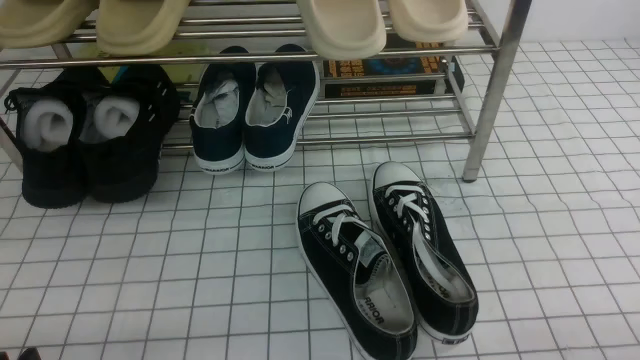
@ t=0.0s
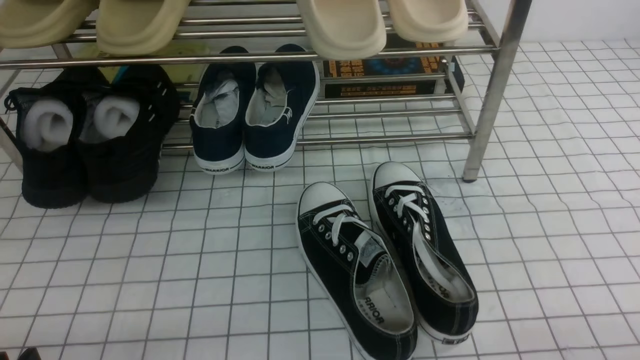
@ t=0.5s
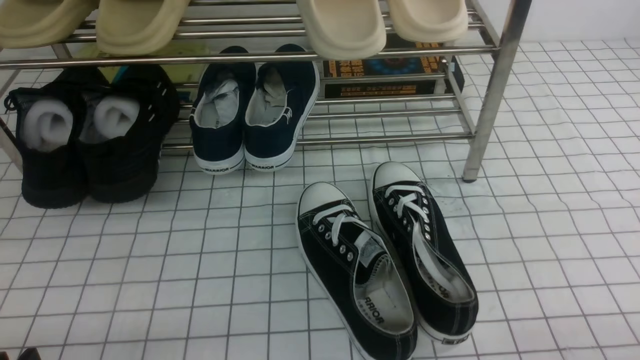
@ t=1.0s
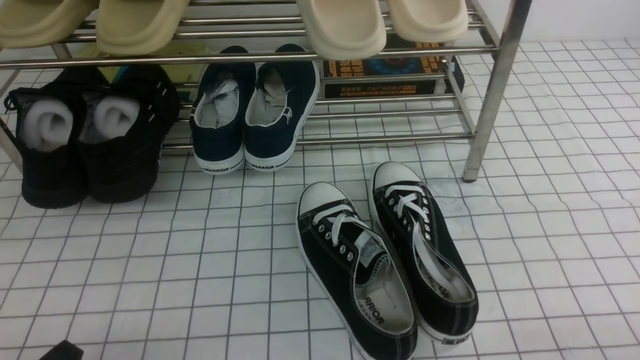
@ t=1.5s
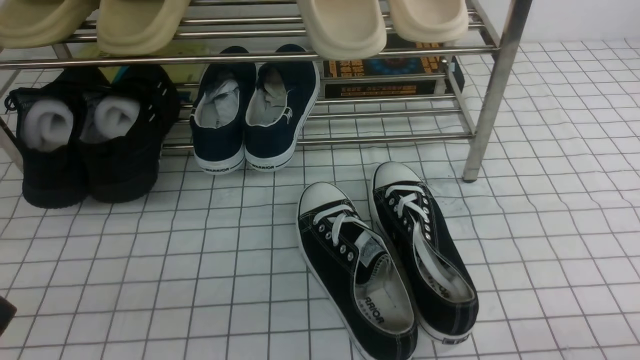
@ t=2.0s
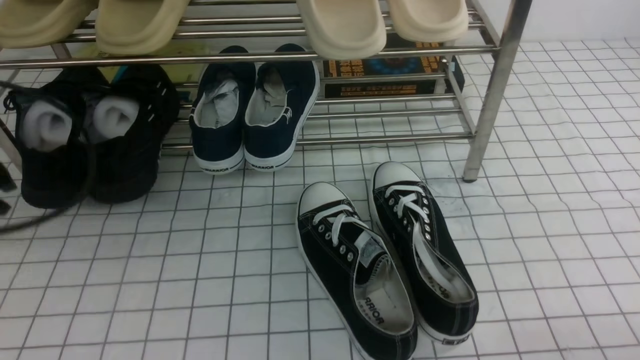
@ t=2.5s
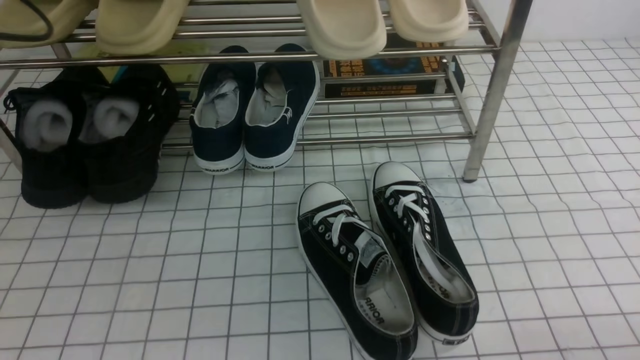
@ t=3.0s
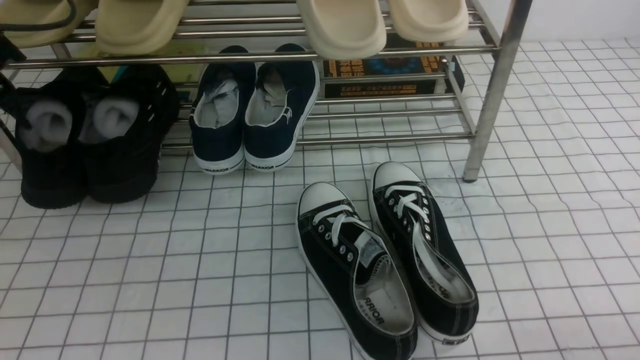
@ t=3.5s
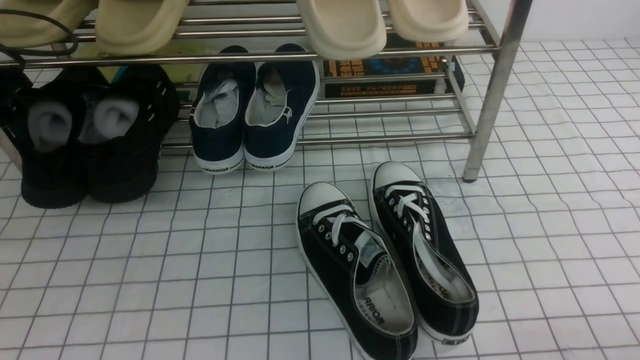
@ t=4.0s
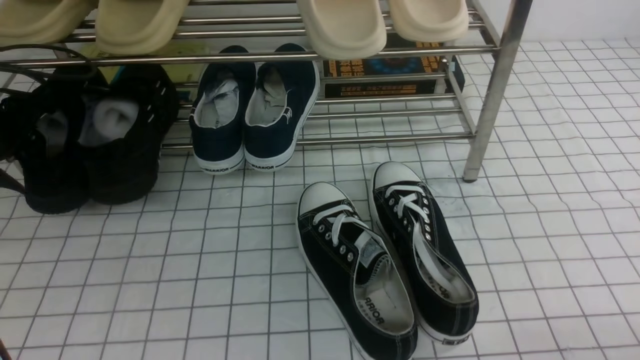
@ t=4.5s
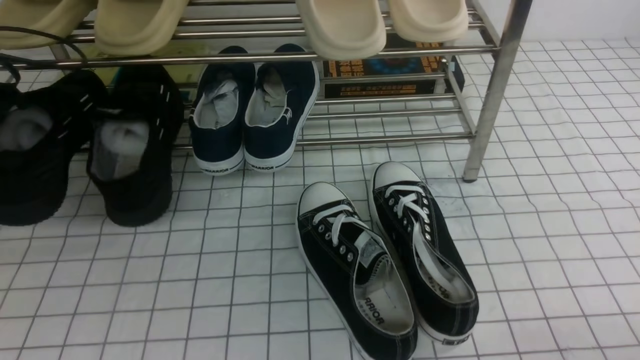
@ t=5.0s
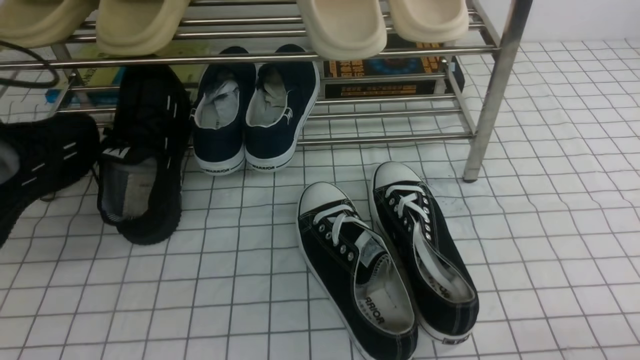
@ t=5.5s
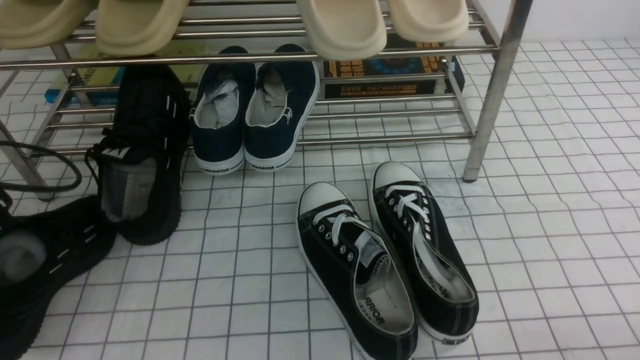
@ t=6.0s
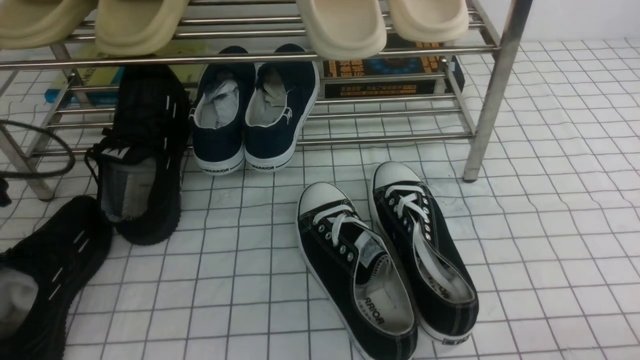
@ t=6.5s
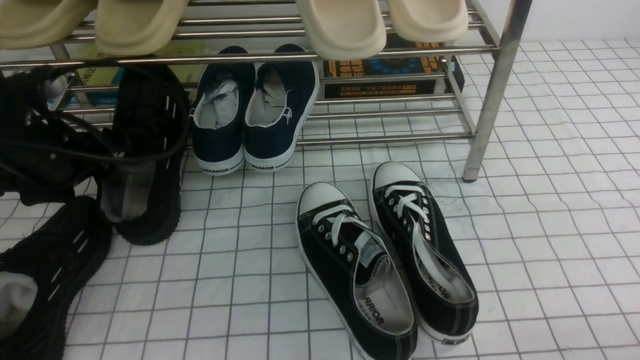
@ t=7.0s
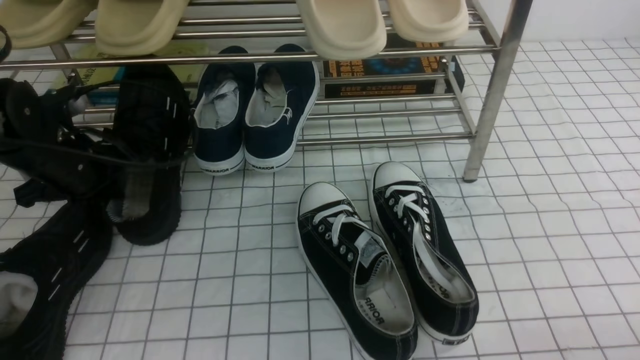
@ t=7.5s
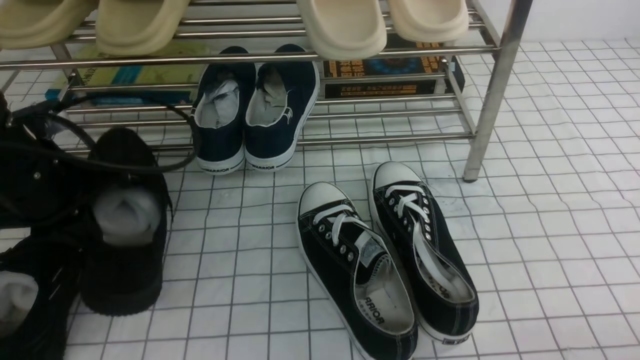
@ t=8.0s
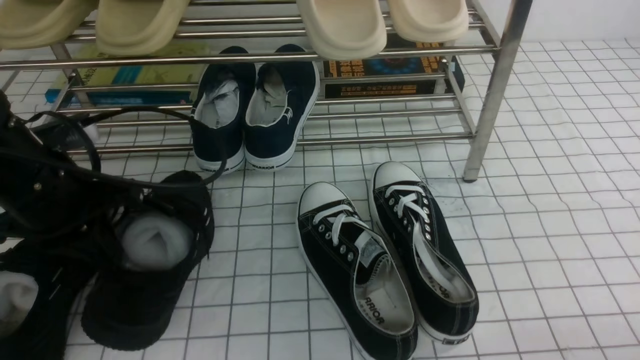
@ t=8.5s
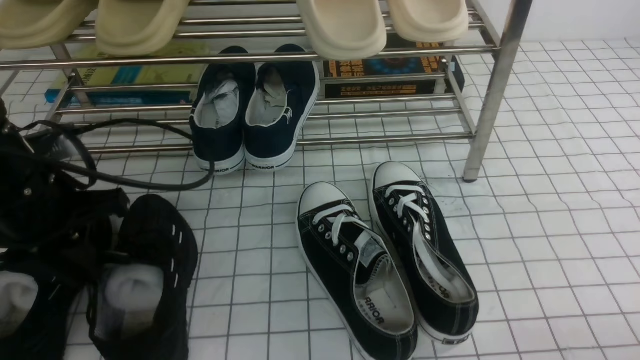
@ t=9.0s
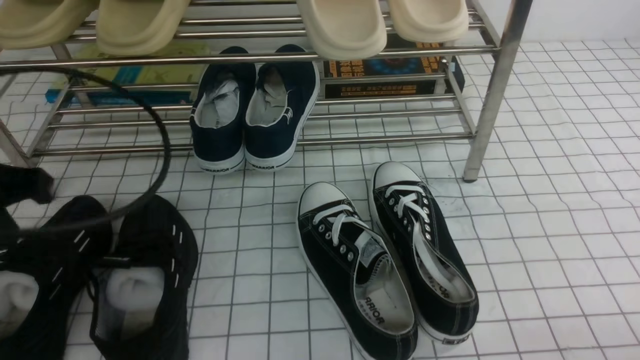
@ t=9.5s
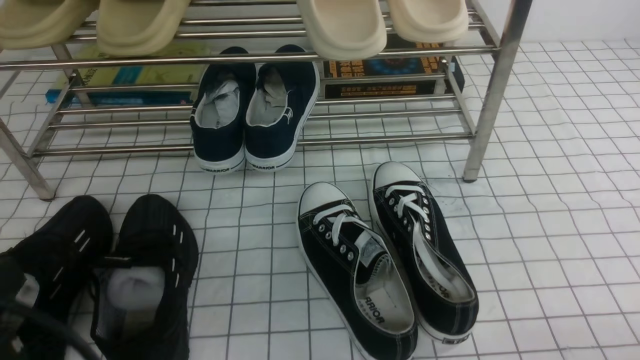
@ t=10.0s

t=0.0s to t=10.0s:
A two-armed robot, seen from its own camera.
Step, t=0.0s to t=4.5s: use the left arm to clamp a shoe on the left side of the shoe rack.
Step, t=5.0s to t=6.0s: Use your left arm to remove the clamped shoe from the shoe rack and put it down.
Step, t=6.5s to t=7.5s: use the left arm to clamp a shoe on the left side of the shoe rack.
Step, t=8.0s to t=9.0s: Use your left arm to remove the clamped shoe from the shoe rack and put it down.
t=2.0s to t=4.0s: The left gripper travels forward by approximately 30 cm, and opens.
t=4.0s to t=6.0s: The left gripper goes about 15 cm backward, and closes up.
t=6.0s to t=8.0s: The left gripper heads to the right and forward, covering approximately 10 cm, and opens, then closes once more.
t=8.0s to t=10.0s: The left gripper goes some 25 cm backward, and opens, then closes again.

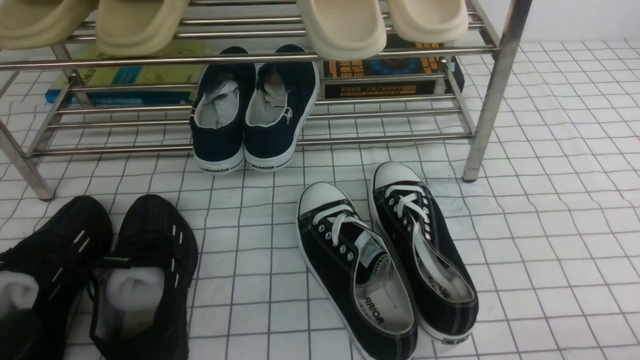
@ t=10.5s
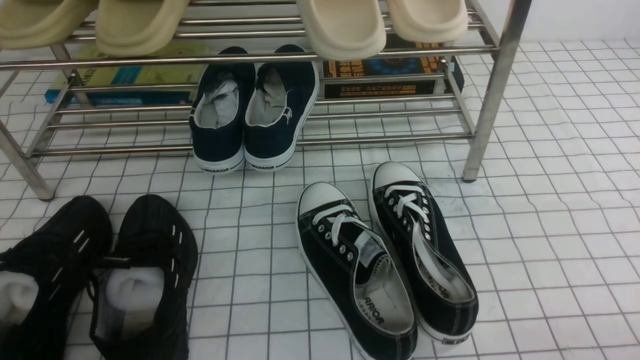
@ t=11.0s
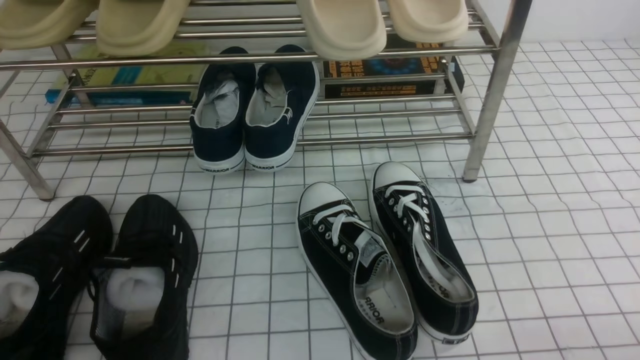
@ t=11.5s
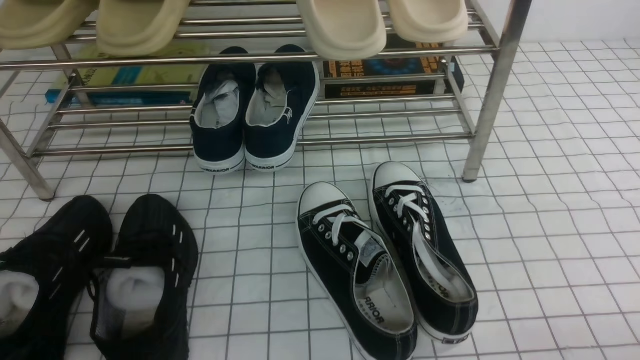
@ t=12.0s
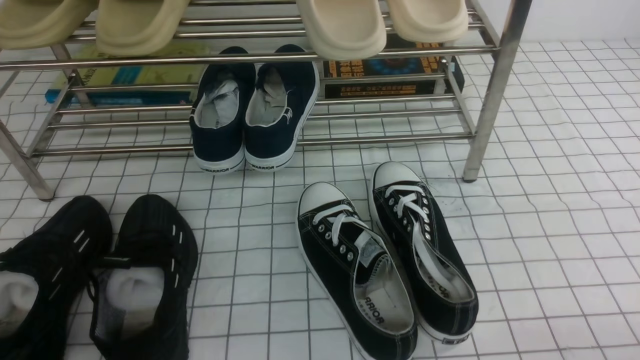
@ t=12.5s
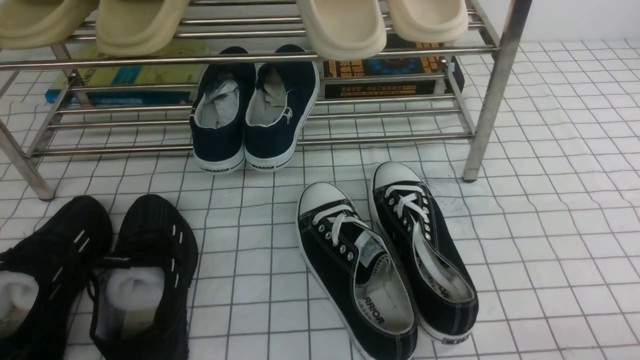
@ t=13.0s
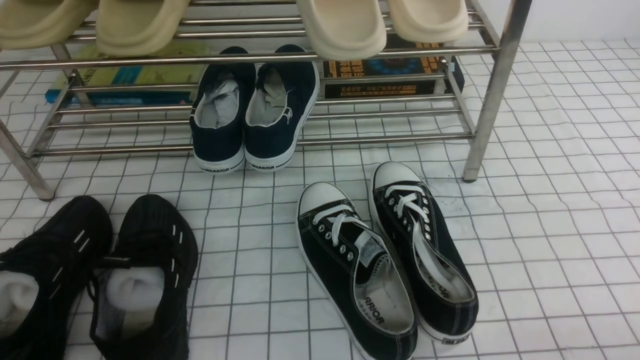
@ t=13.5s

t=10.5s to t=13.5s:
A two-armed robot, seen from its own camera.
t=12.0s to t=13.5s: Neither gripper changes place.

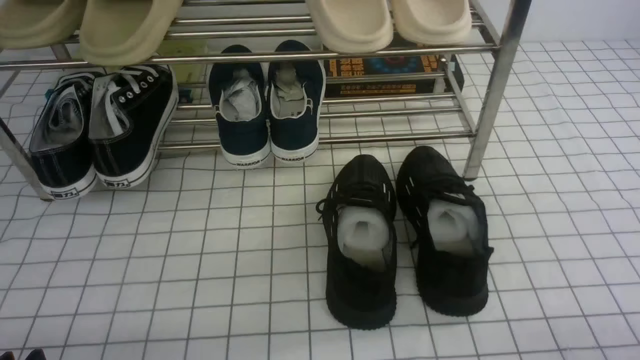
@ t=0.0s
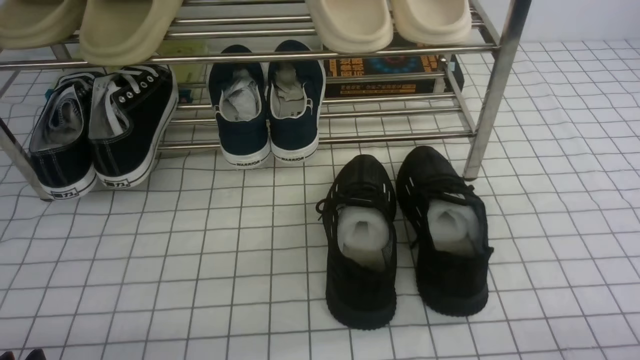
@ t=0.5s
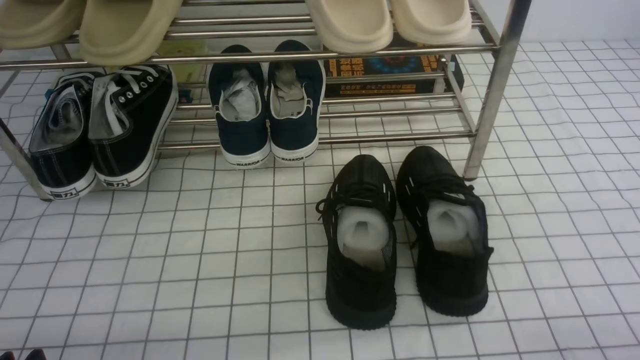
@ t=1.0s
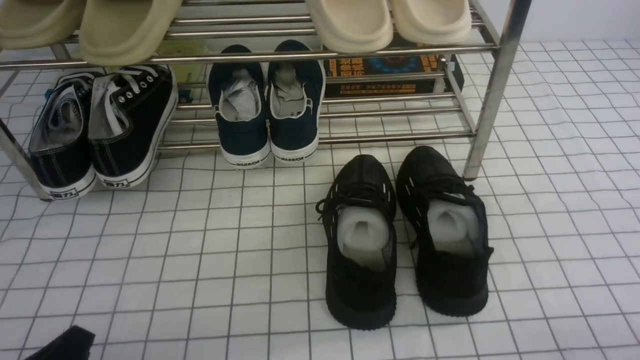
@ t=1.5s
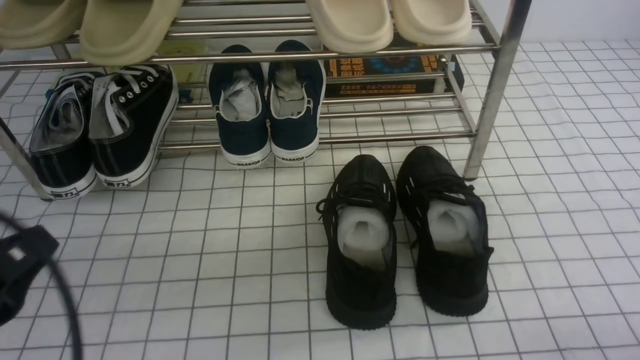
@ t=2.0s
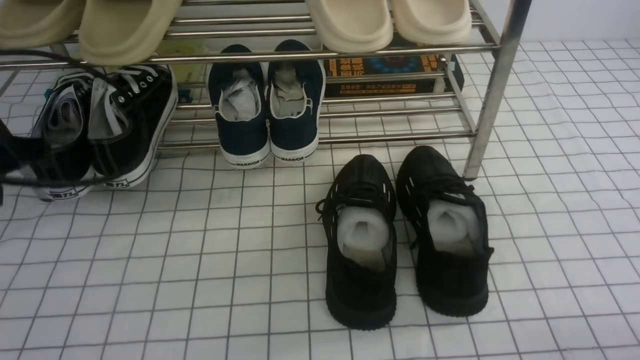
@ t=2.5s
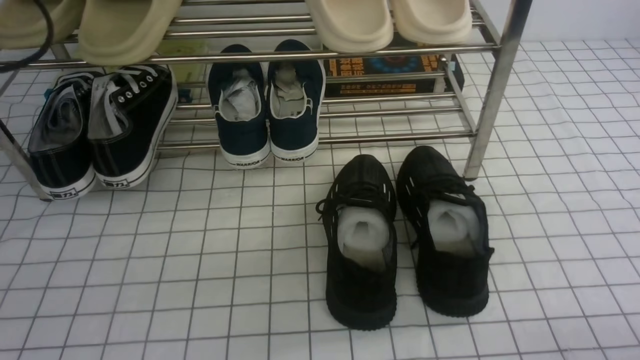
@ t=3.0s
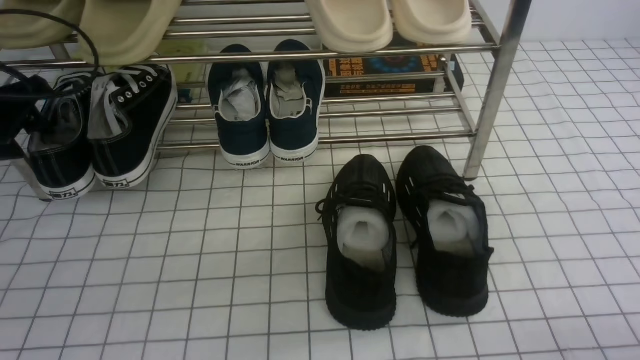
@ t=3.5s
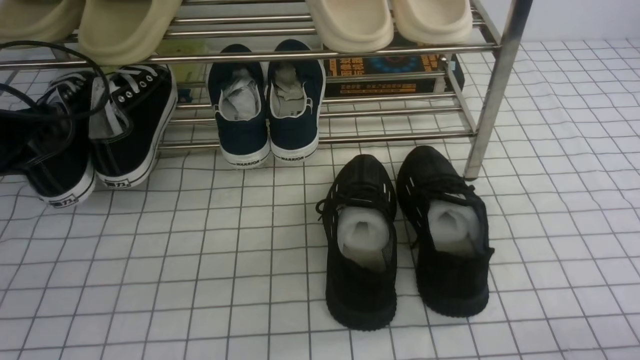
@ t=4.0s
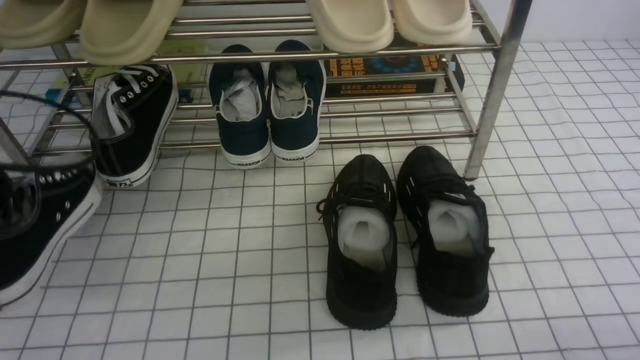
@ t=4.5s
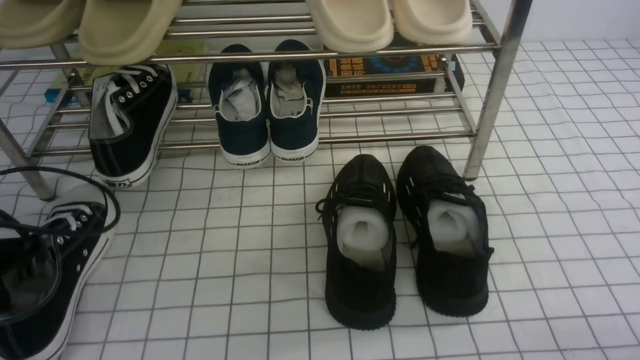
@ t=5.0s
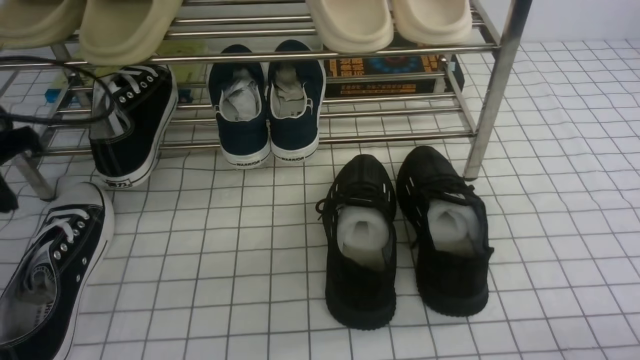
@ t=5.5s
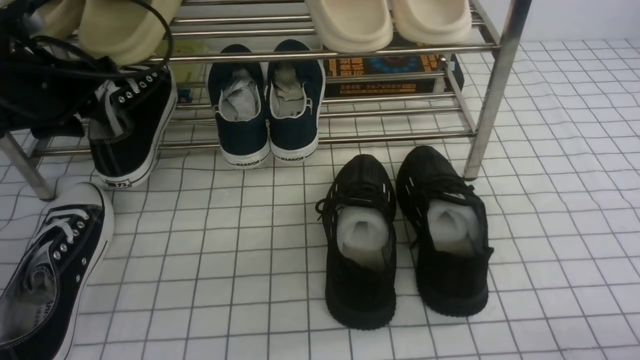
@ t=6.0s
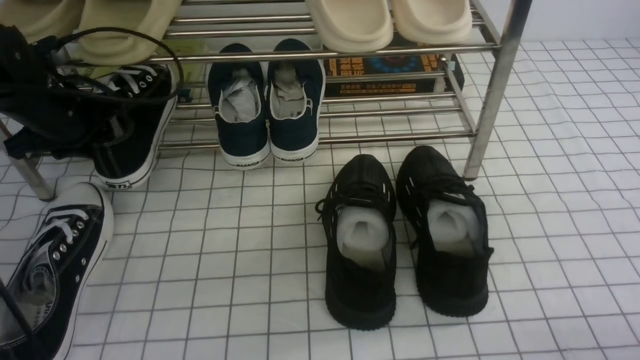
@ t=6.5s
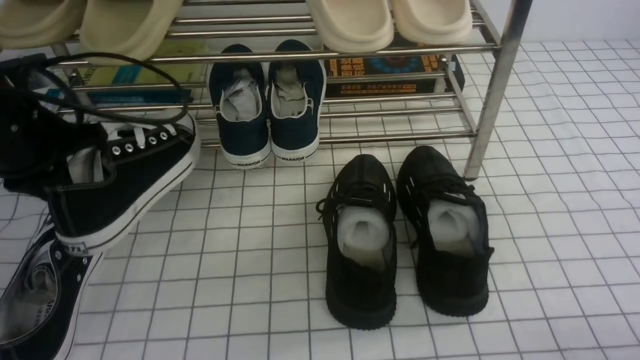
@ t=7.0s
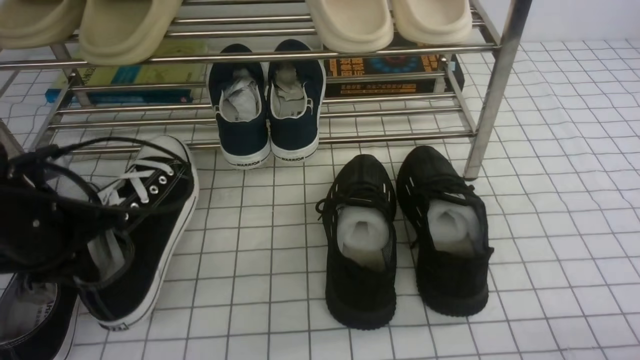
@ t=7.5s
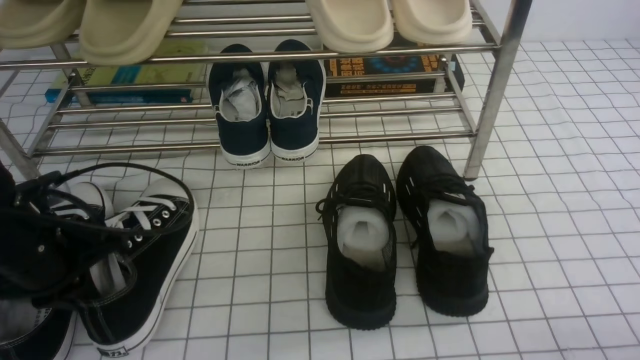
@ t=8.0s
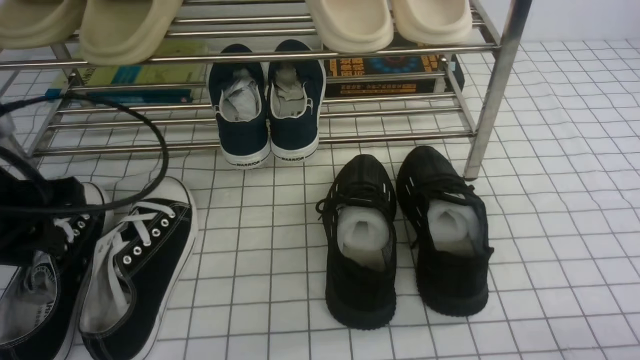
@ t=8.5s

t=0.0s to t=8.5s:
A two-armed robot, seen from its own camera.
Step, t=0.0s to t=3.5s: use the left arm to clamp a shoe on the left side of the shoe rack.
Step, t=4.0s to t=5.5s: Use your left arm to remove the clamped shoe from the shoe rack and put it down.
Step, t=6.0s to t=6.5s: use the left arm to clamp a shoe on the left side of the shoe rack.
Step, t=7.0s to t=8.0s: Use your left arm to remove the clamped shoe from the shoe rack and put it down.
t=2.0s to t=4.0s: The left gripper moves forward, about 30 cm, and opens and closes again.
t=4.0s to t=6.5s: The left gripper travels to the right by roughly 5 cm, goes backward and returns, approximately 10 cm each way, and opens its fingers.
t=6.5s to t=8.5s: The left gripper goes roughly 15 cm backward, and closes, then opens again.
